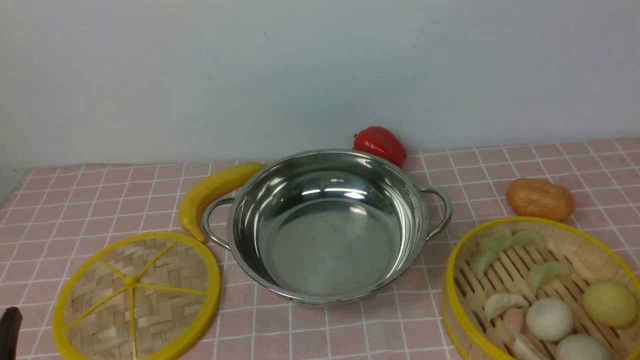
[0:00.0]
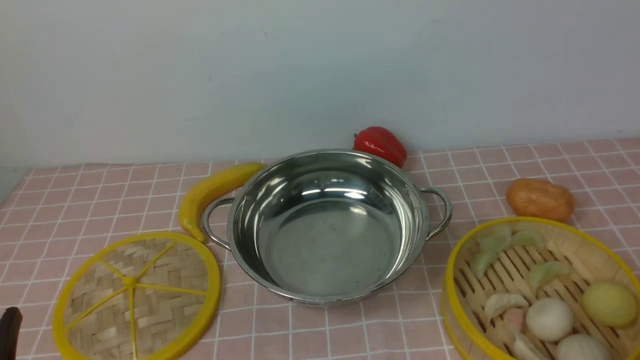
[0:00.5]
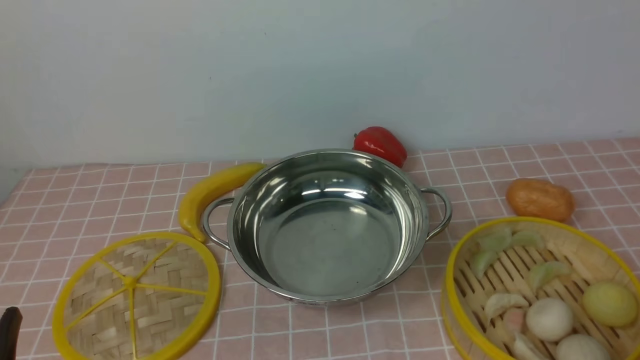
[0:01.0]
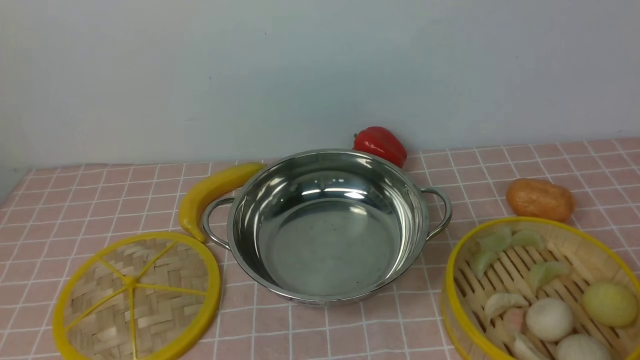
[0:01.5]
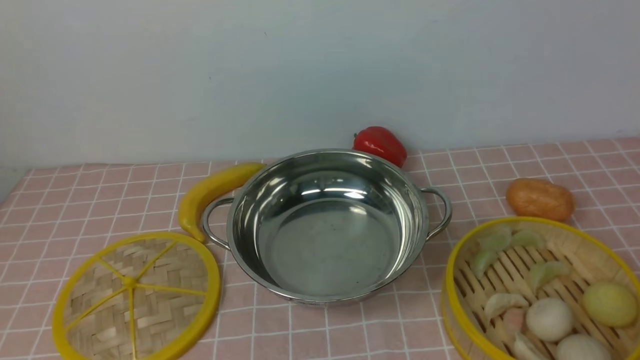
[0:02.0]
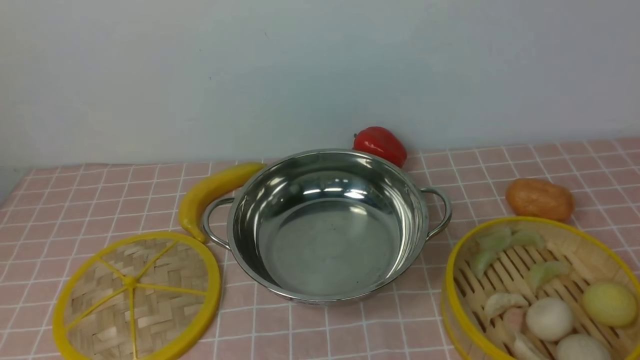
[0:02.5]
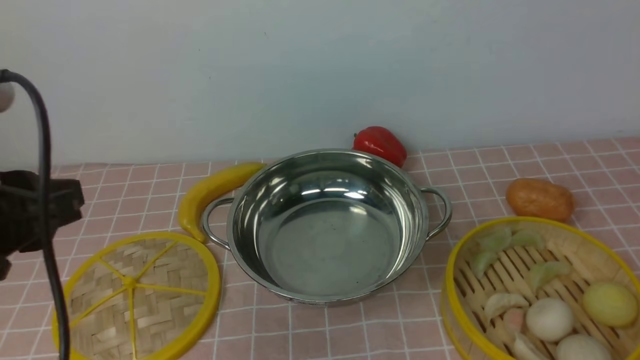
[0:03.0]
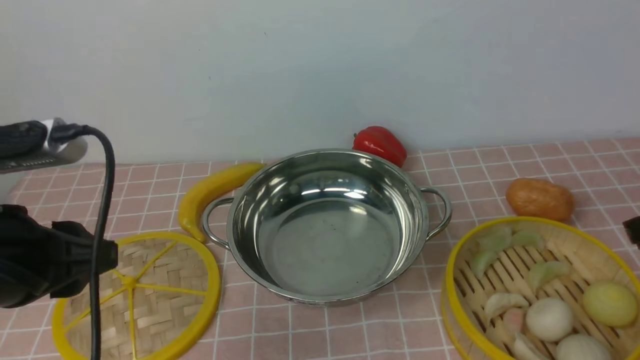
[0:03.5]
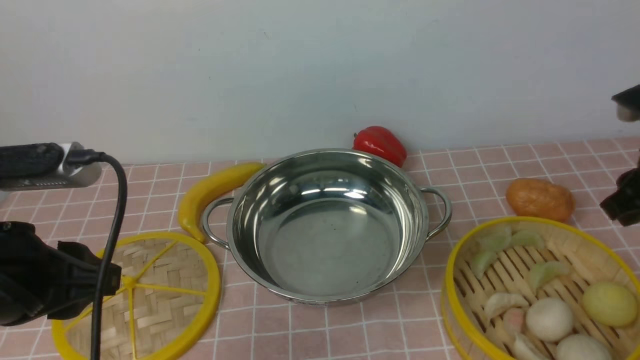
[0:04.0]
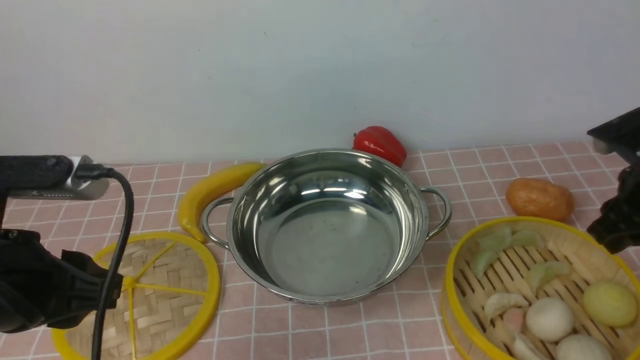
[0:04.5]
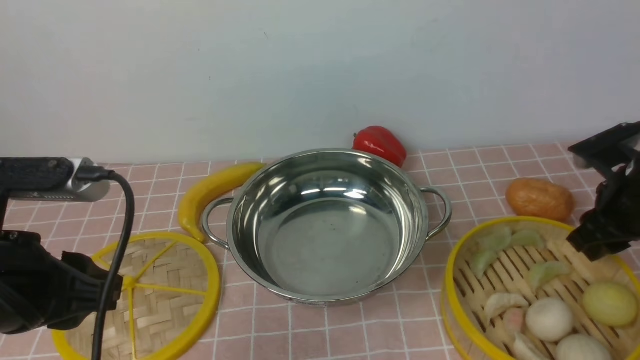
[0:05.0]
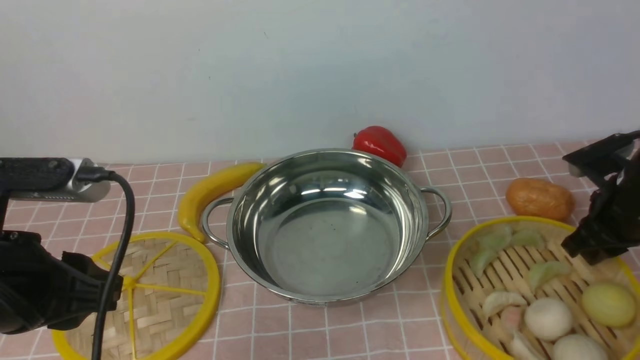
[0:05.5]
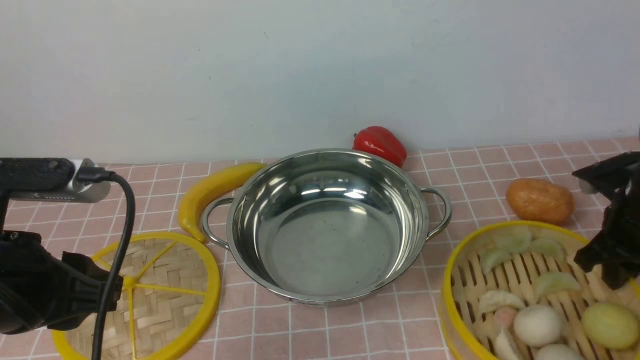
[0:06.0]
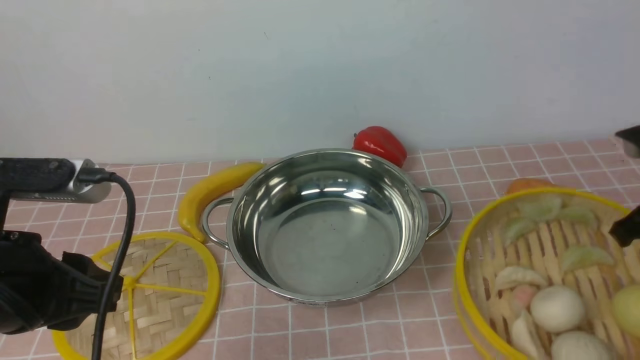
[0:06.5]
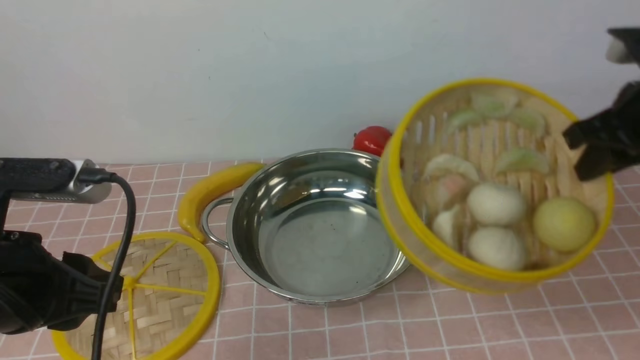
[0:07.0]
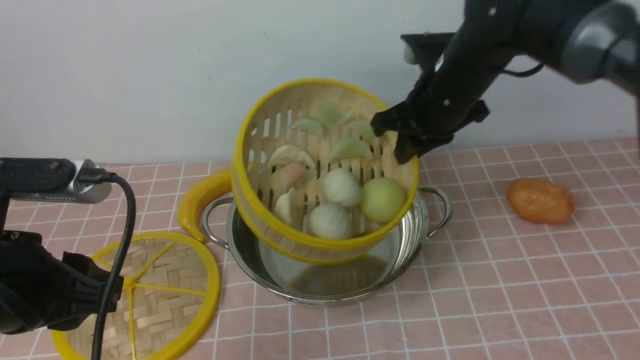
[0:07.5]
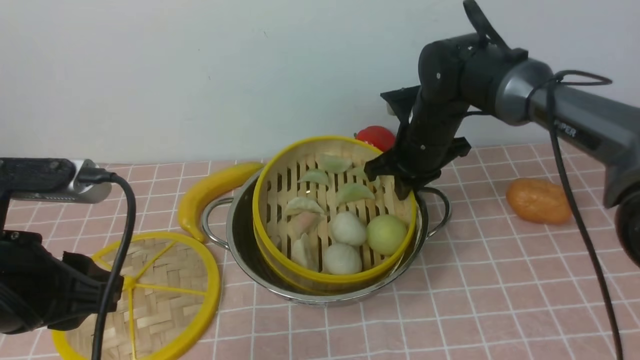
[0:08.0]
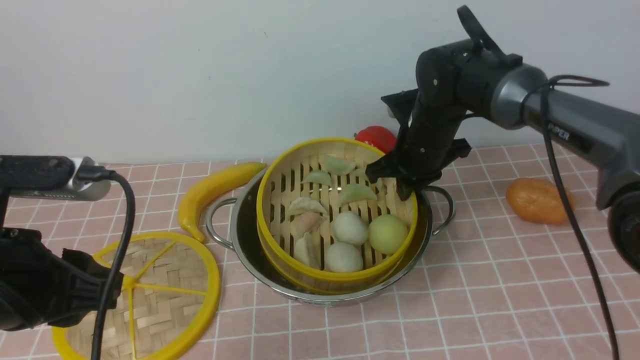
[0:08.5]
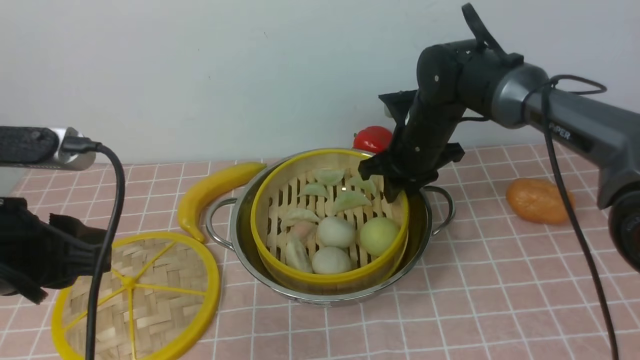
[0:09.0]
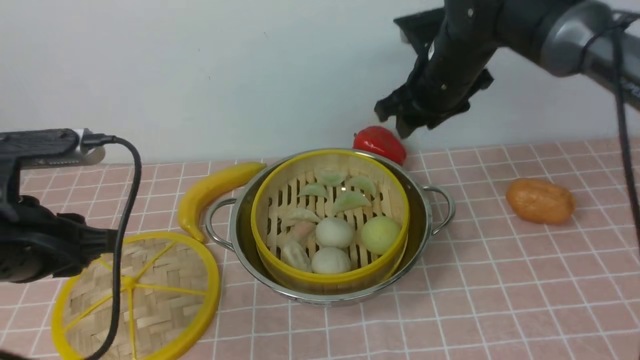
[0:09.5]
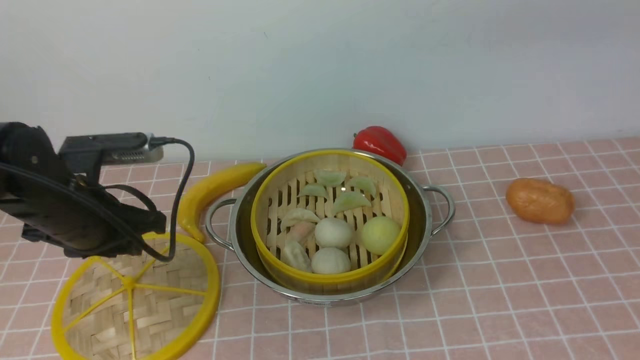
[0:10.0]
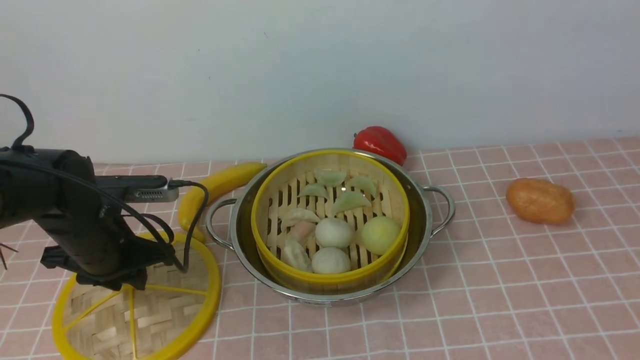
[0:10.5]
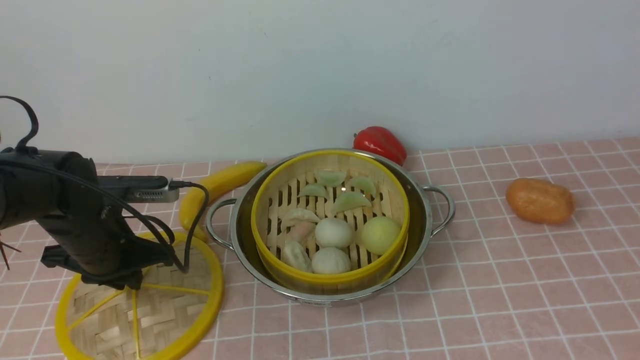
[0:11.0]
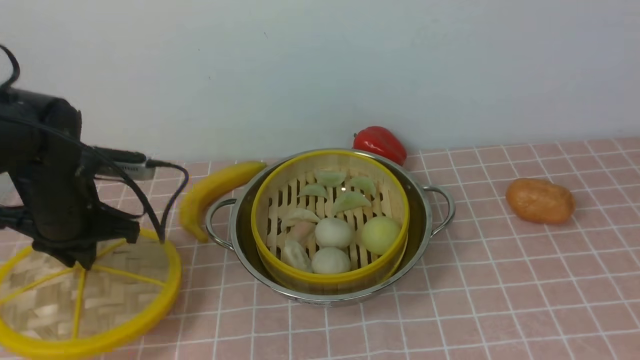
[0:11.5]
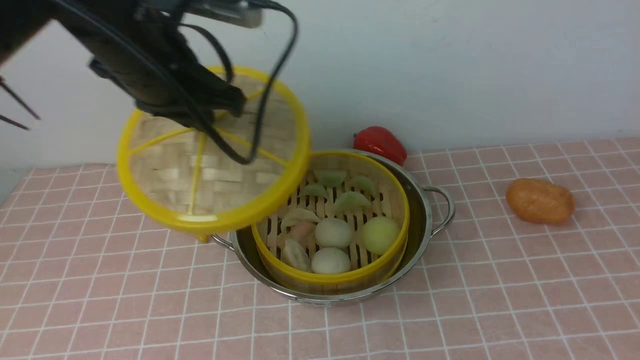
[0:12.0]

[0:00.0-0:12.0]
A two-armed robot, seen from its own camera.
Task of the whole recording: place the steamer in the pot on the pink tablecloth, and put the lid on the steamer.
Step, 0:00.0 to 0:06.0: use the right arm to lift the steamer closest to it.
Step, 0:06.5 to 0:09.0: use the right arm to put the steamer into the iron steamer pot in the middle.
Step, 0:09.5 to 0:11.0: use the left arm to lift the lid of the steamer.
0:02.0 to 0:04.0: The right gripper heads forward, covering some 30 cm; the left gripper is displaced forward by some 15 cm.
0:04.0 to 0:06.0: The right gripper travels downward by some 10 cm, and closes up.
0:06.0 to 0:08.0: The right gripper travels to the left and forward by about 25 cm.
0:08.0 to 0:10.0: The left gripper heads forward and downward, covering roughly 15 cm. Meanwhile the right gripper travels upward and backward by about 35 cm, and opens.
0:10.0 to 0:12.0: The left gripper heads upward, to the right and forward, covering some 20 cm. Meanwhile the right gripper travels backward and to the right by approximately 25 cm.

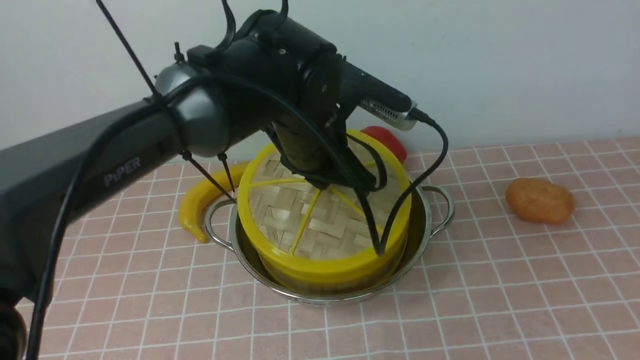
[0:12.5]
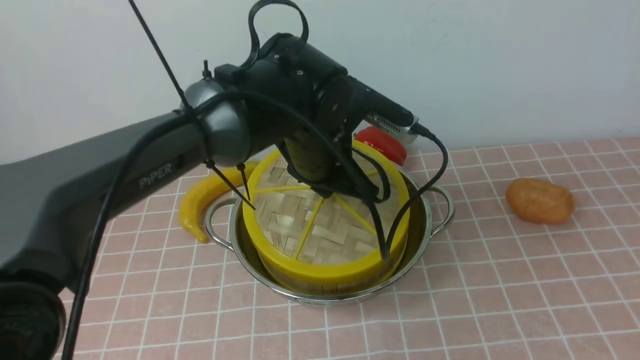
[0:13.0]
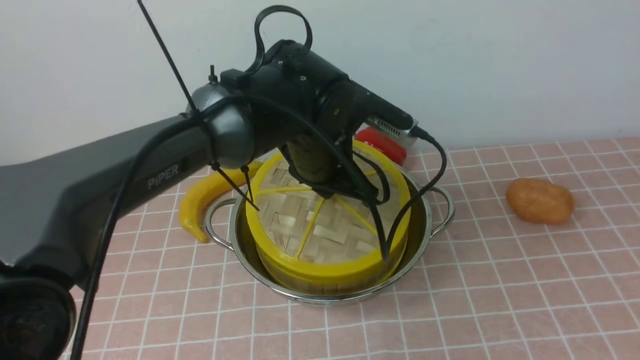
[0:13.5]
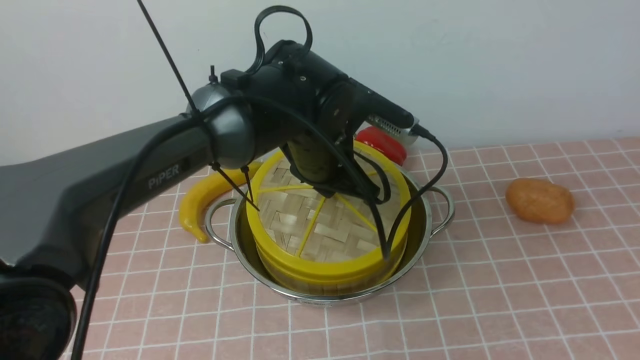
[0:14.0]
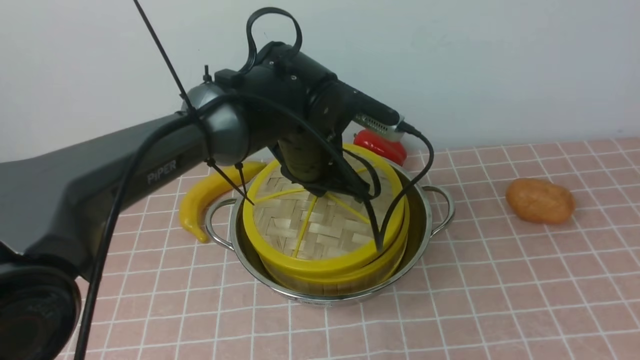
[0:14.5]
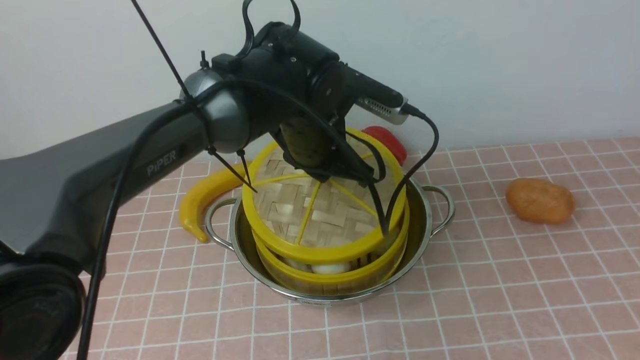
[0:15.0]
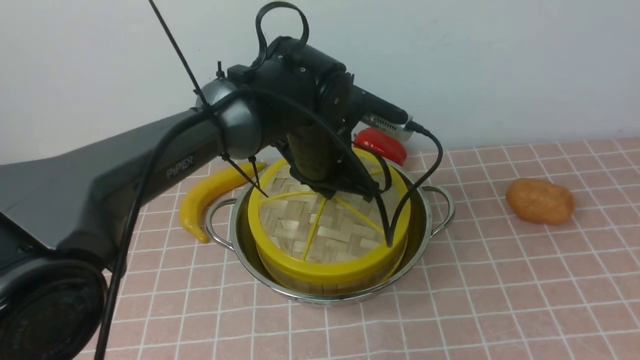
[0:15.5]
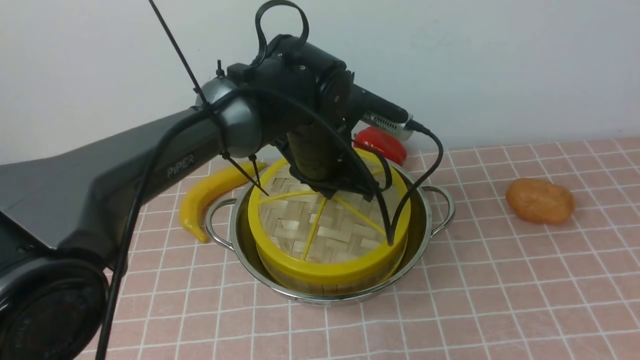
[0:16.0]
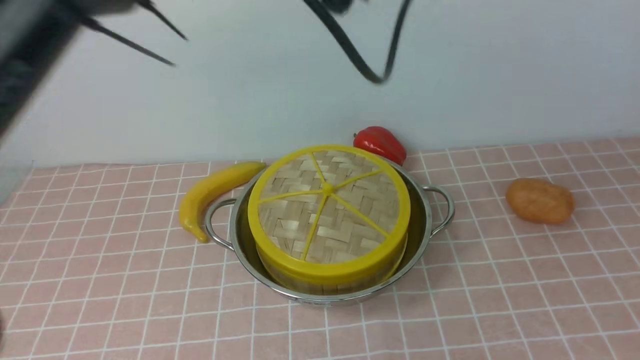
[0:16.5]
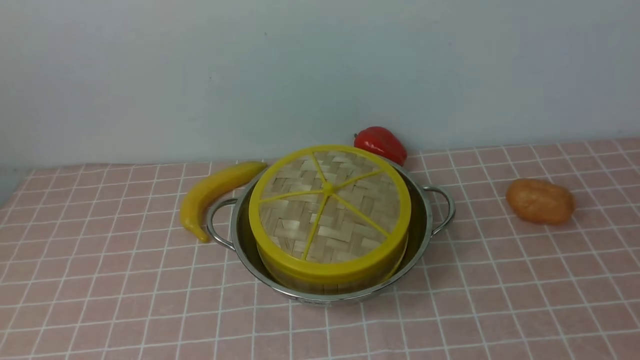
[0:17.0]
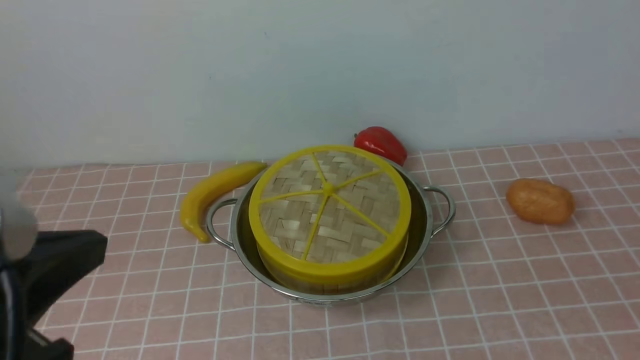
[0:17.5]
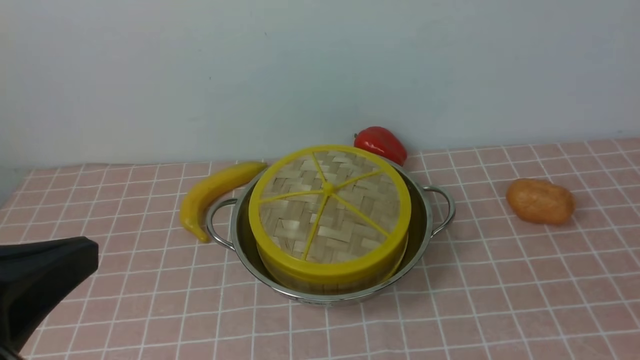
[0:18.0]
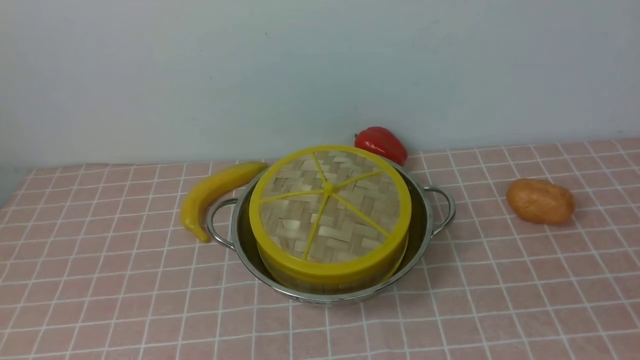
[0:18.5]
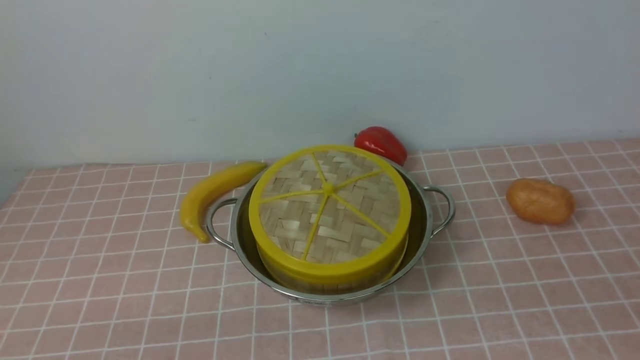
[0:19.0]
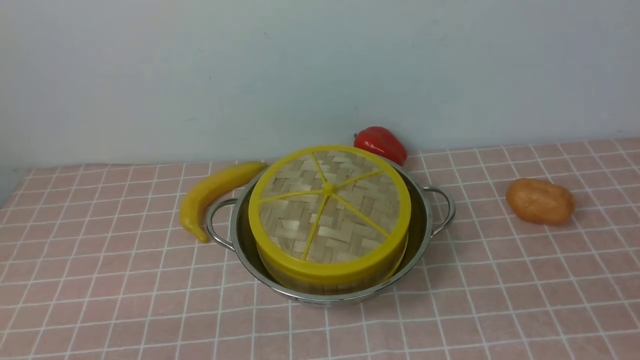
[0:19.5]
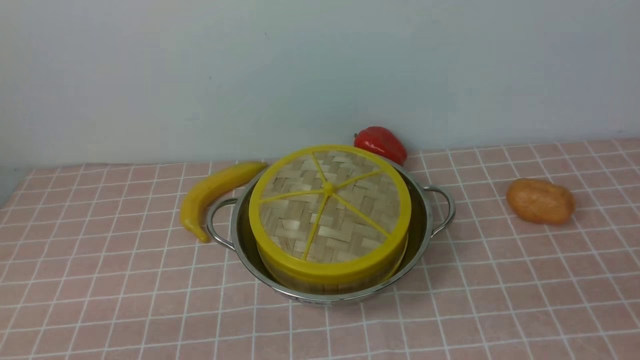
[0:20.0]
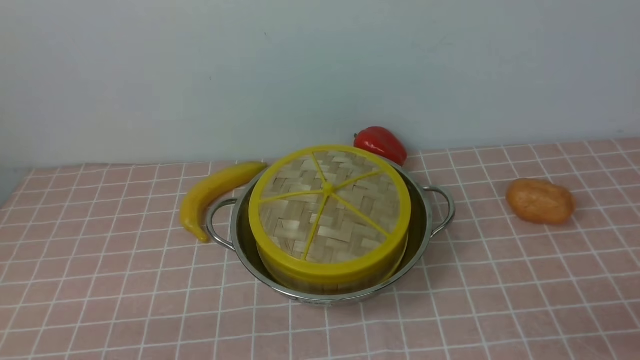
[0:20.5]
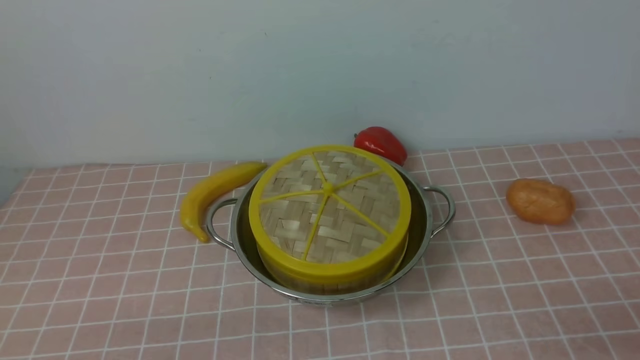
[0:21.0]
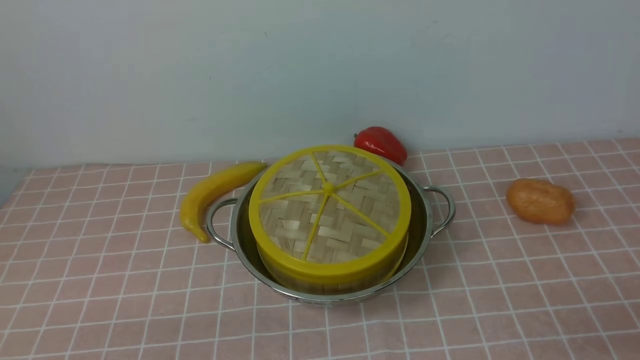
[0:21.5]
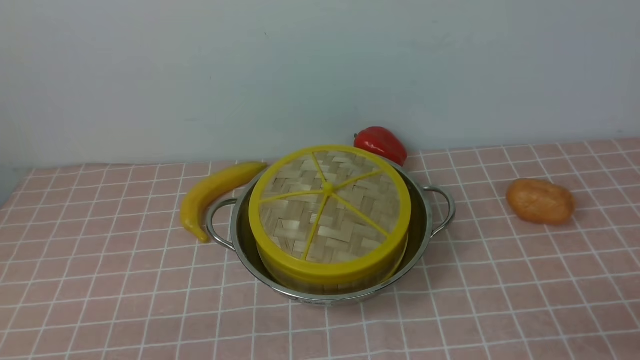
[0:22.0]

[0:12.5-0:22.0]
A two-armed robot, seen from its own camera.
Task of the whole recording: place the steamer in the pot on the pink tablecloth, and put the lid on the steamer.
Step, 0:12.5 to 0:16.0: use the left arm to place the steamer lid on the steamer.
0:14.5 to 0:16.5: The left gripper shifts about 25 cm upward, and opens.
0:16.5 to 0:18.0: The left gripper shifts approximately 35 cm backward, to the left and downward, and closes. Meanwhile the right gripper goes some 15 cm downward, and closes up.
0:18.0 to 0:20.0: The left gripper goes about 20 cm downward.
